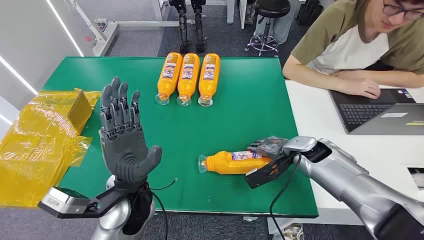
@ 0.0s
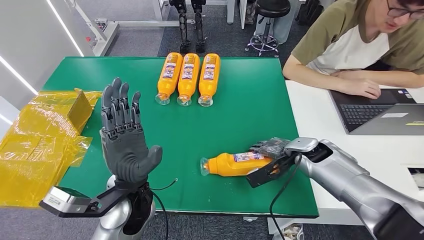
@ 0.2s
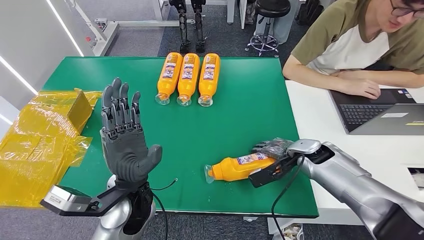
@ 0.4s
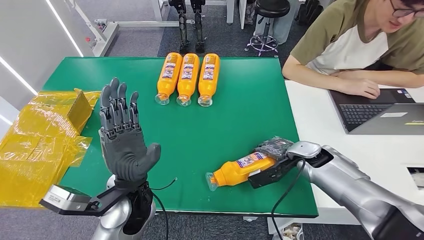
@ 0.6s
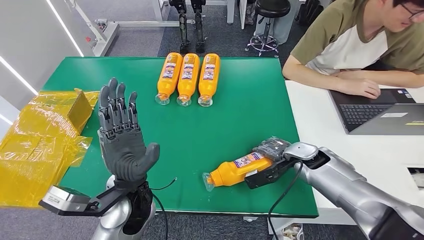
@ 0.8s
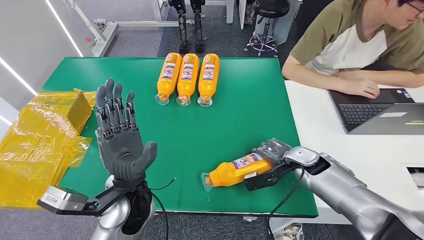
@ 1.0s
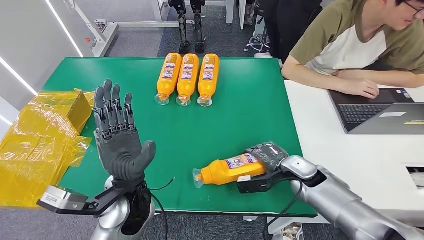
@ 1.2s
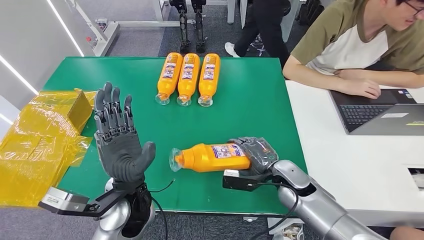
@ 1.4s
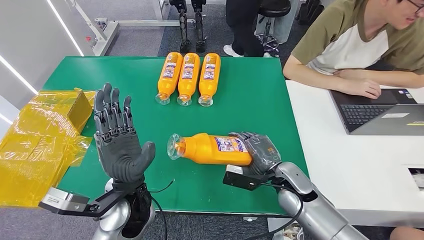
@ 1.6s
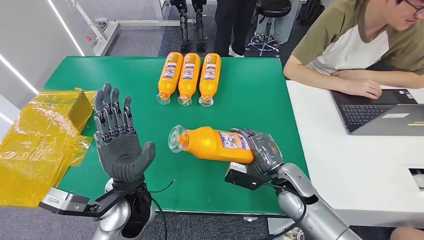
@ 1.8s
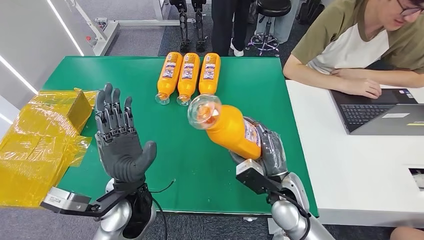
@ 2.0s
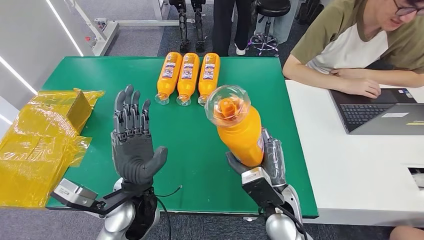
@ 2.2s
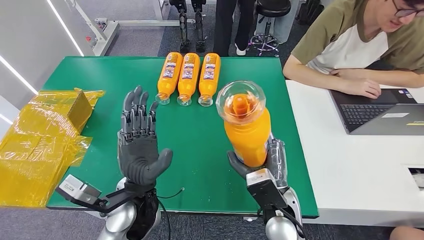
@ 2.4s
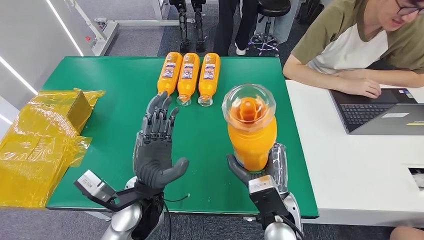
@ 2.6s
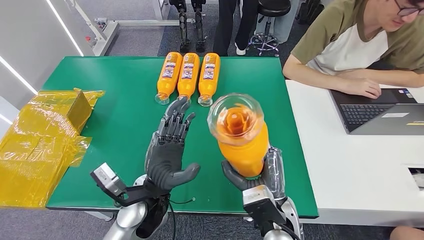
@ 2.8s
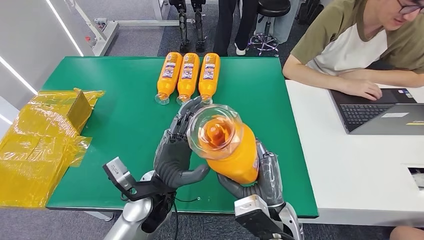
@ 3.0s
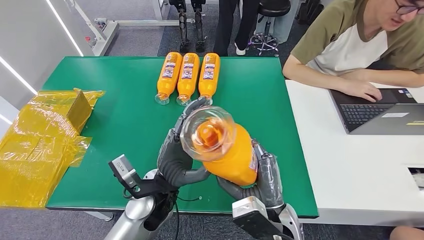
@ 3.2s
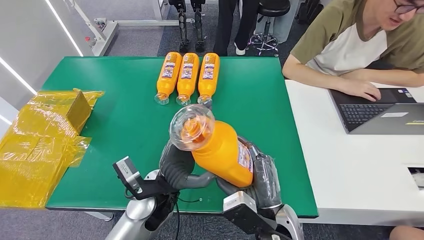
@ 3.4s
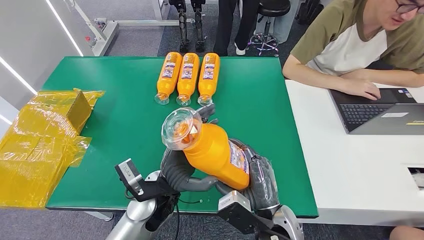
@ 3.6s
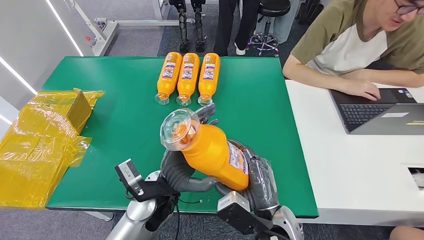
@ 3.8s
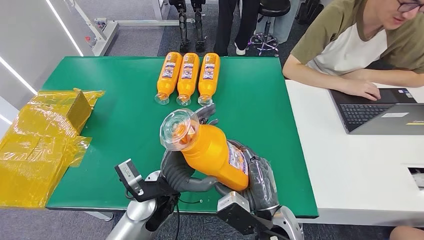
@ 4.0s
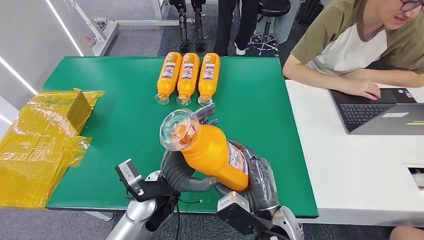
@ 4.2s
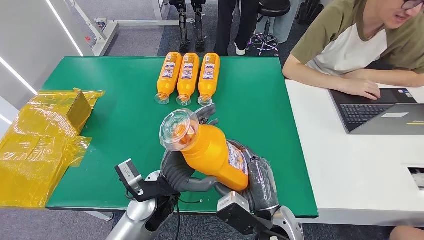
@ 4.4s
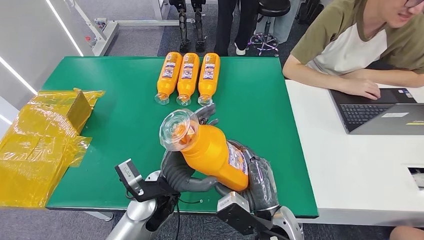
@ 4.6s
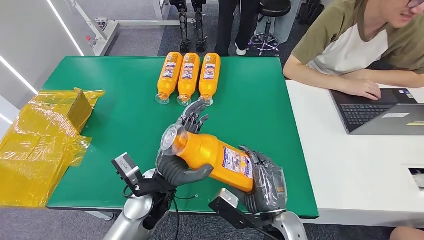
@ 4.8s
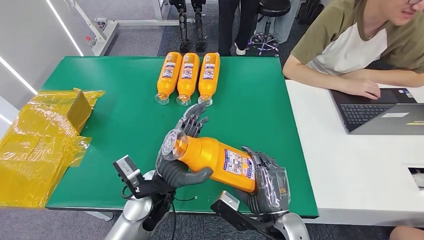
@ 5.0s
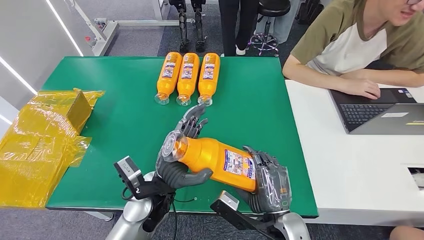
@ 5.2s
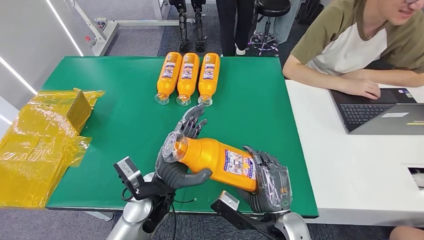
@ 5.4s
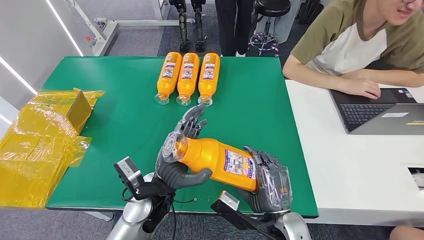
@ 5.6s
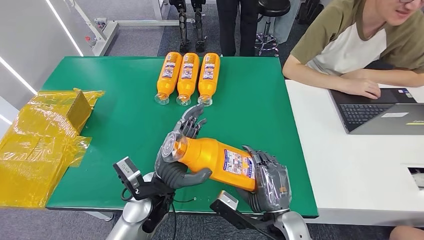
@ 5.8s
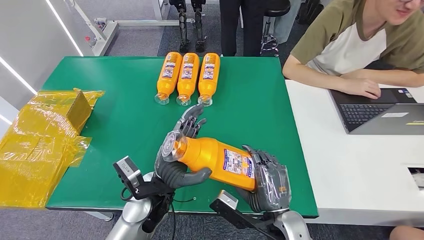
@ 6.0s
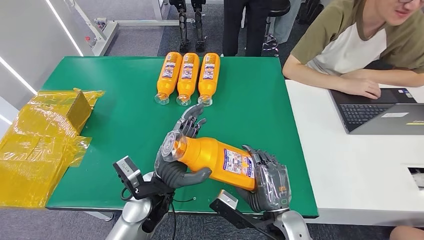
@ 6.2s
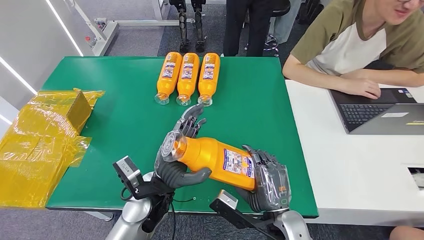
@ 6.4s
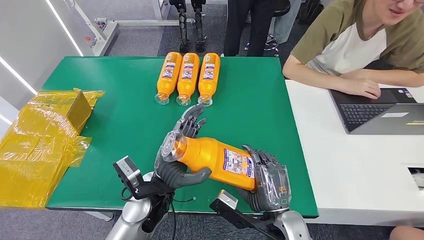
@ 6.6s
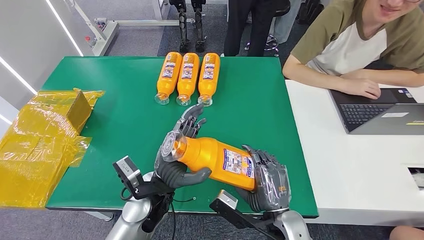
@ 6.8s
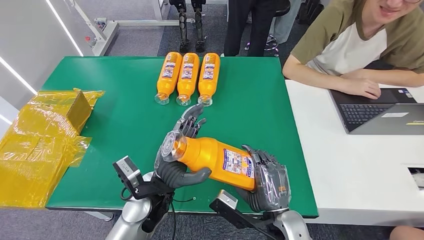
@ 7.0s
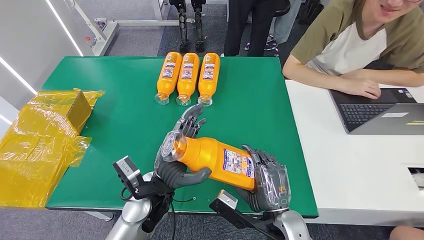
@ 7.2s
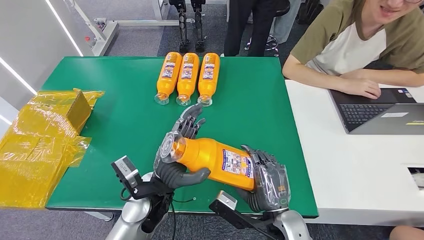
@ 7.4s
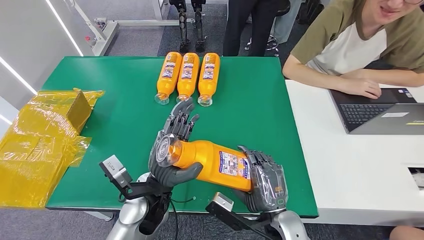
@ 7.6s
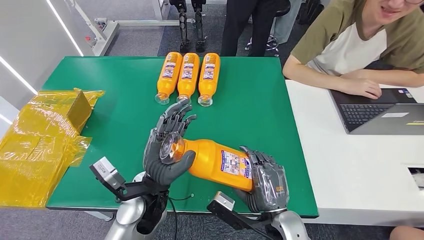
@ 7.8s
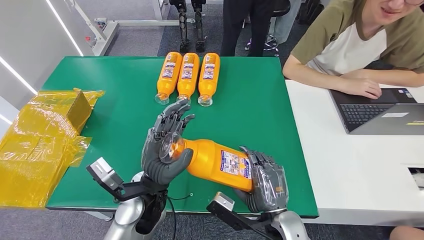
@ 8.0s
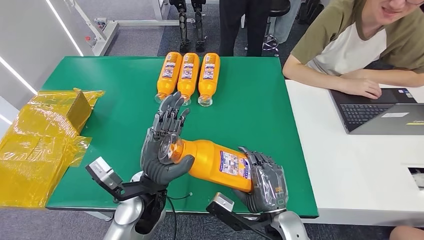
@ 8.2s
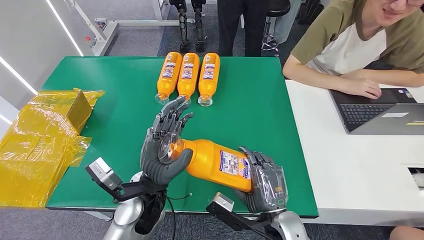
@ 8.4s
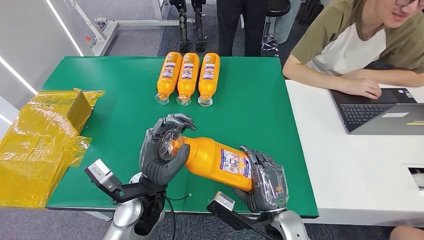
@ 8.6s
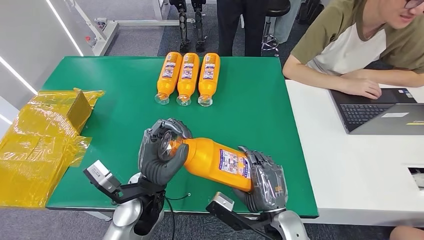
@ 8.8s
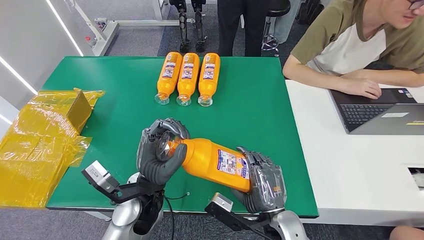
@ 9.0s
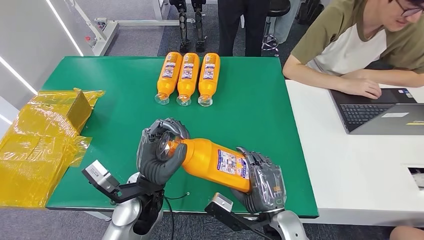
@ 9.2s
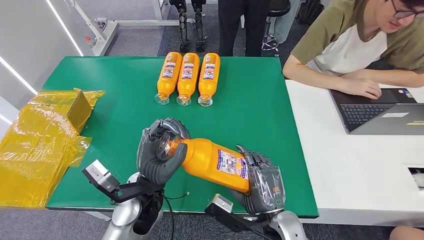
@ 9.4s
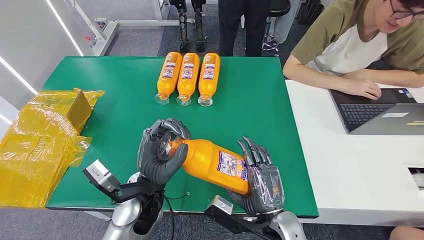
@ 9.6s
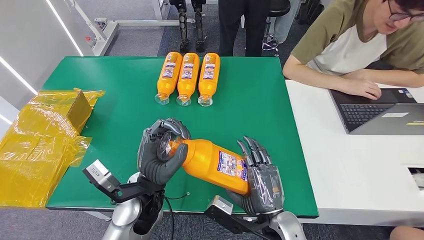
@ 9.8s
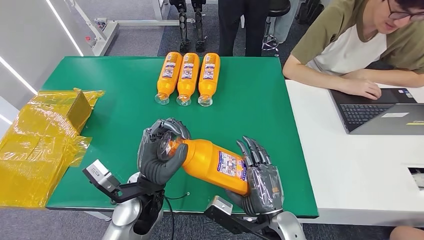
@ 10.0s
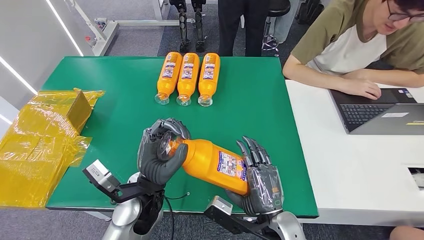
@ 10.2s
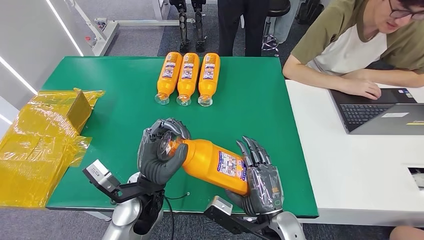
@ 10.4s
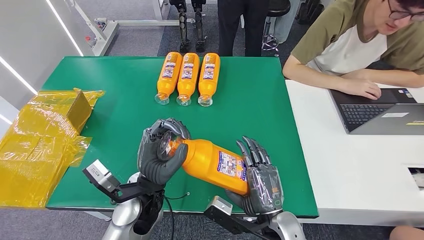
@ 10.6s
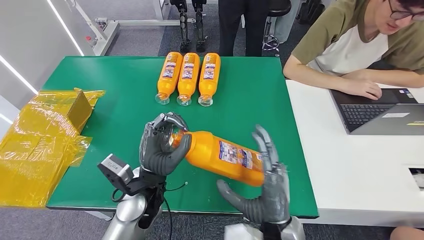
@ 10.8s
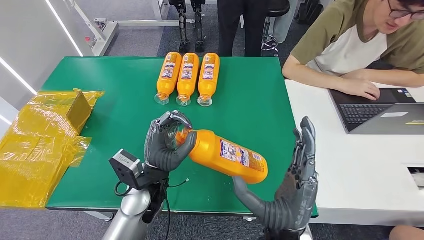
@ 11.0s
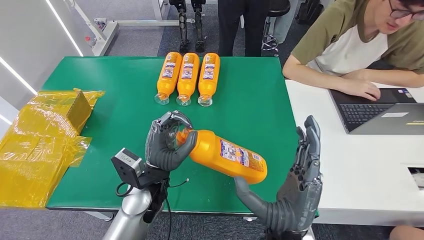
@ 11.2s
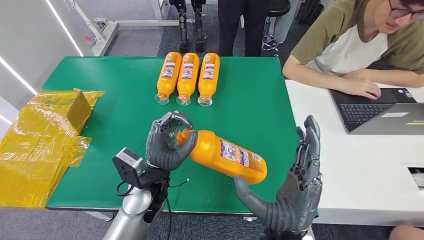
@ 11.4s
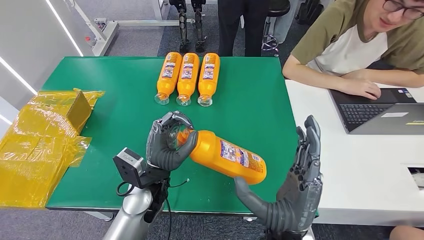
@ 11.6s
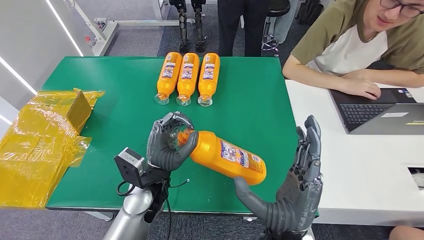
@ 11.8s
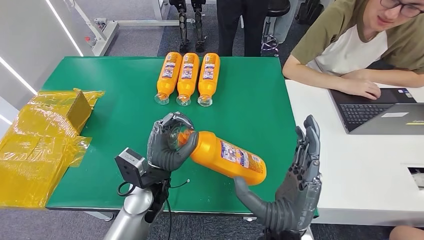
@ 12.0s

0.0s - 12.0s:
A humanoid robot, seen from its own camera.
Step, 0.0s - 3.8s: Pick up the bottle from the table.
3.0s - 4.4s: The hands stay close to where they were, moving slightly.
6.0s - 9.0s: The hands move only a little.
9.0s - 10.4s: Neither hand changes place.
10.4s - 12.0s: The right hand shifts approximately 5 cm upward.

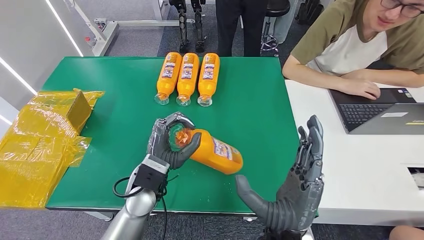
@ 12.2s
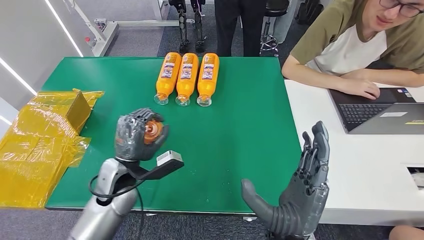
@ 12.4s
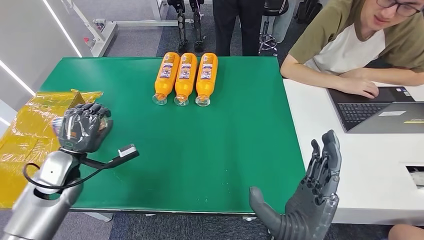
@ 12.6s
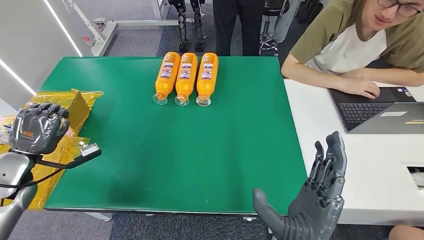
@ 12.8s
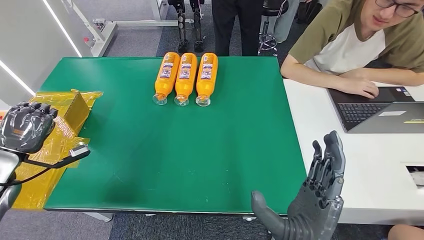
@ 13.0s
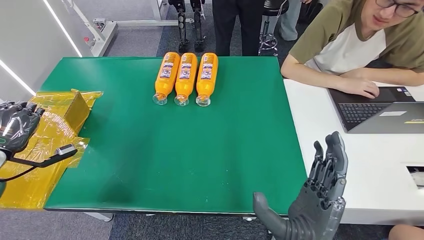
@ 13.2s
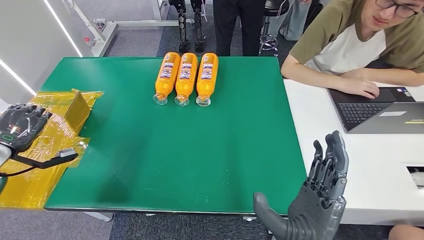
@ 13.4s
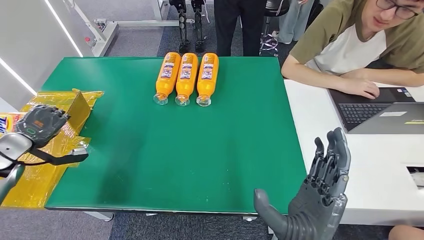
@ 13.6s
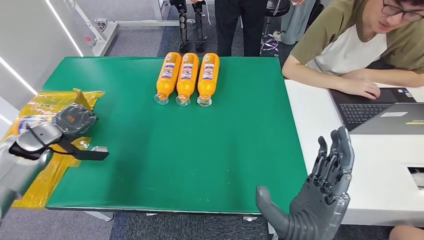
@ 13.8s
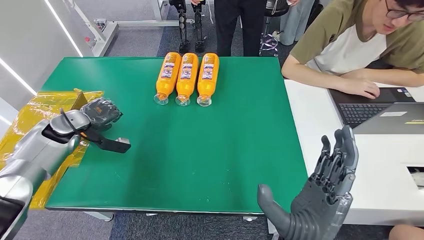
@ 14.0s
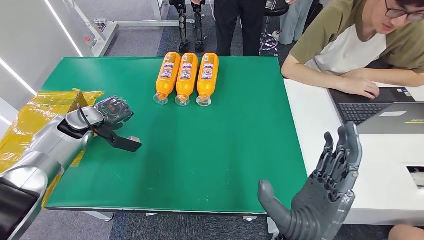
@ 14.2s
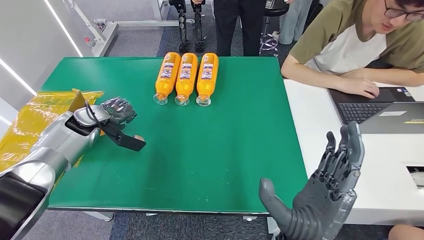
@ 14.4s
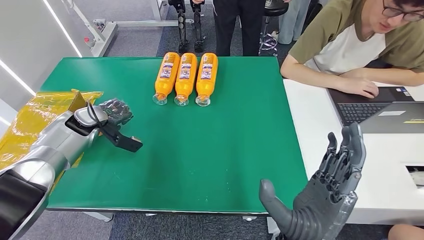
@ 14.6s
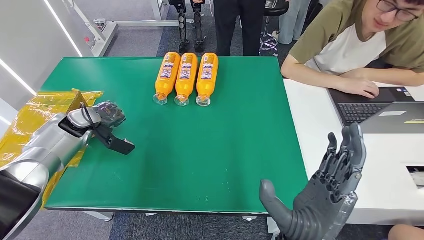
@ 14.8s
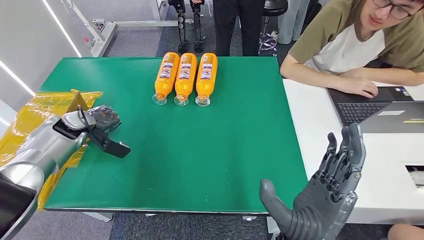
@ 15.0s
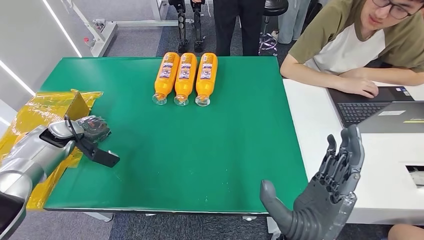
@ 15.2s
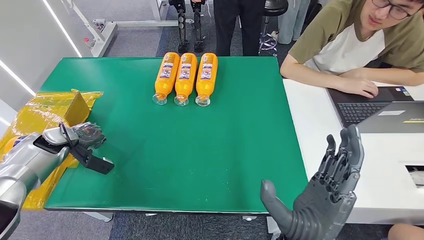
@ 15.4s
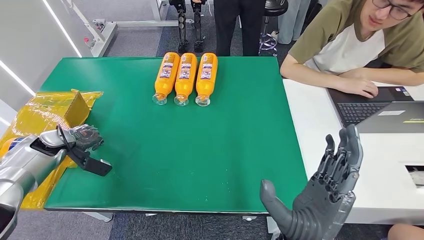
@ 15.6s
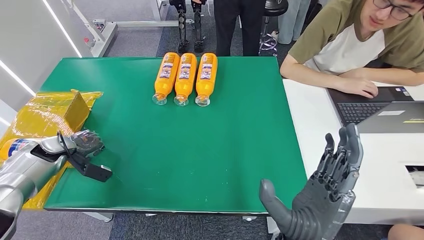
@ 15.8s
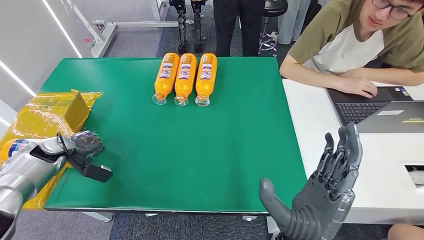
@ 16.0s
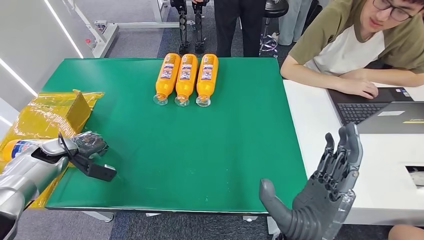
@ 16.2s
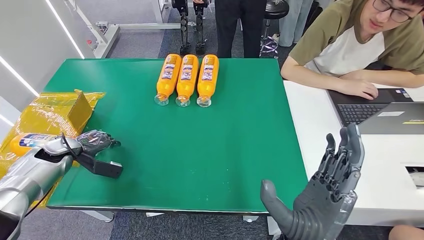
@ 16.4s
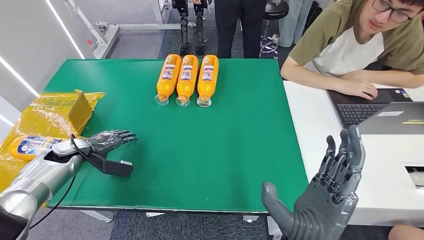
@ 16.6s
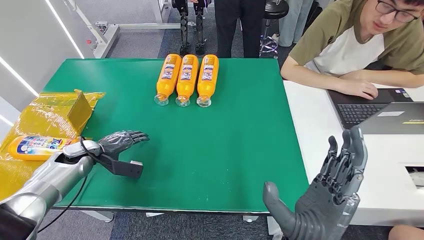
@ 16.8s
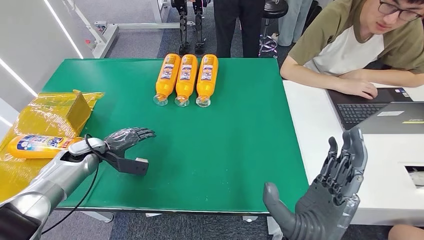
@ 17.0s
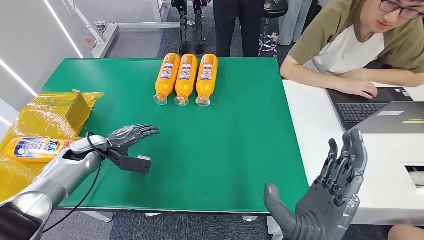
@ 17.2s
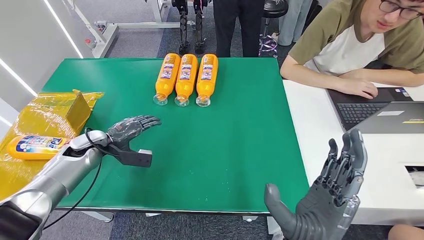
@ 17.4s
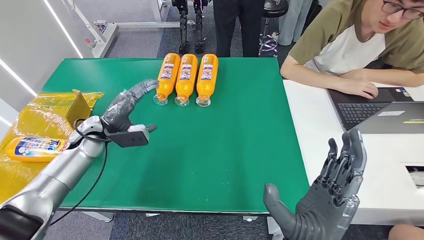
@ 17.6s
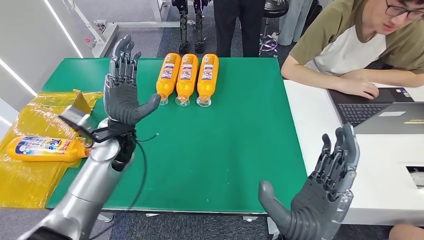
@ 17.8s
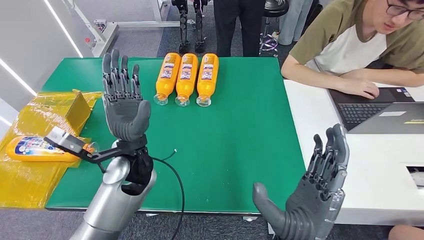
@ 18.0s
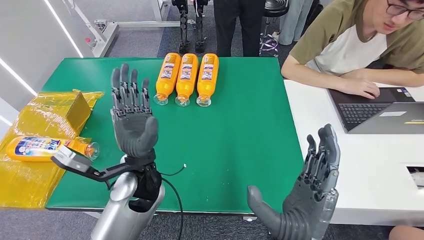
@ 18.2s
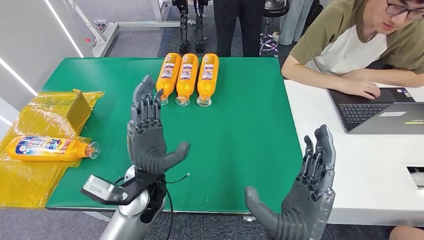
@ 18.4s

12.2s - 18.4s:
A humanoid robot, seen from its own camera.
Step, 12.2s - 18.4s: Turn the bottle to the front side.
12.2s - 13.8s: The left hand shifts approximately 35 cm to the left.
13.8s - 15.4s: The left hand reaches about 10 cm to the right, then returns.
15.4s - 16.8s: The left hand is displaced to the right by roughly 5 cm.
